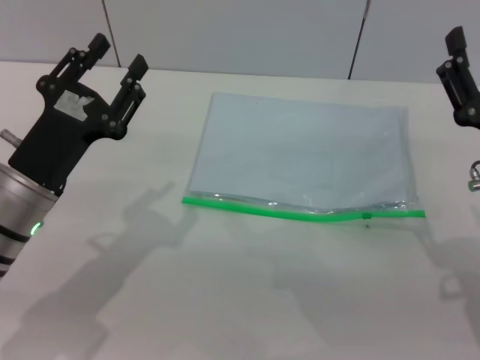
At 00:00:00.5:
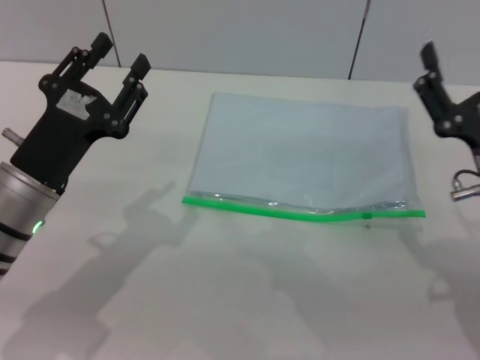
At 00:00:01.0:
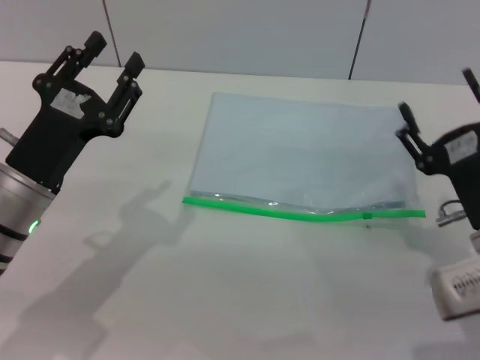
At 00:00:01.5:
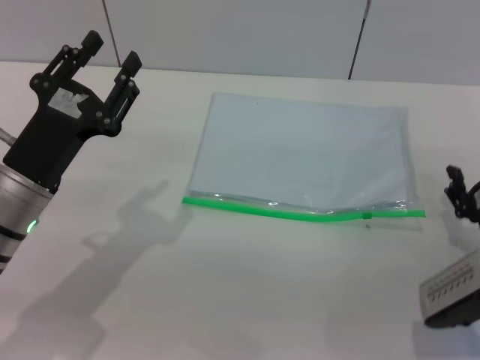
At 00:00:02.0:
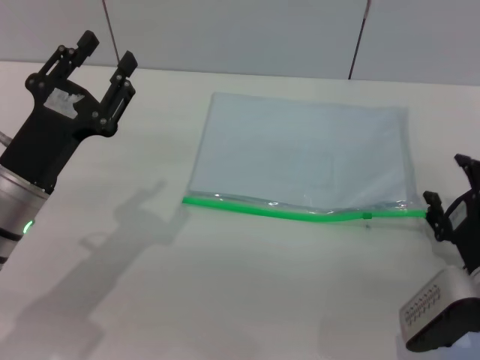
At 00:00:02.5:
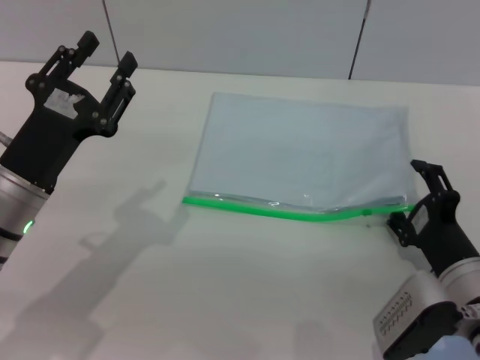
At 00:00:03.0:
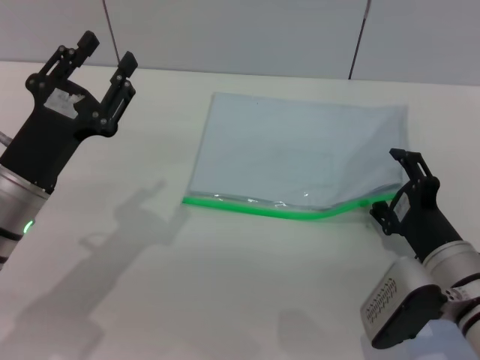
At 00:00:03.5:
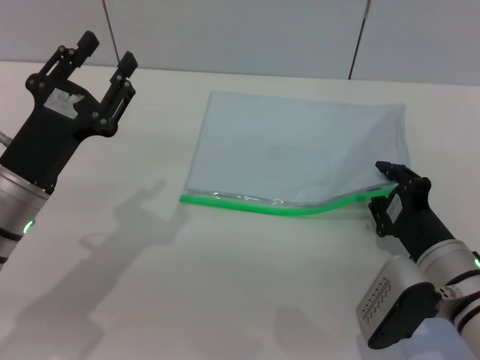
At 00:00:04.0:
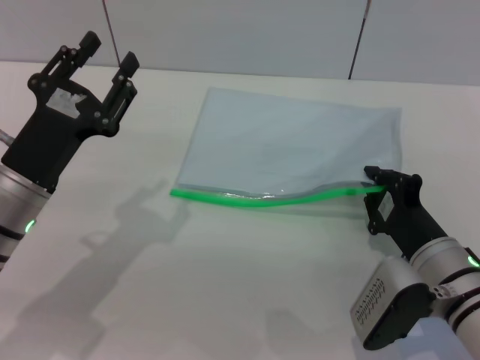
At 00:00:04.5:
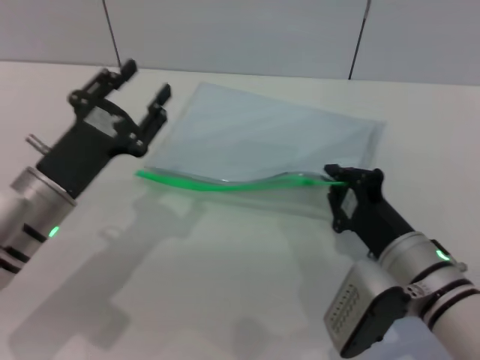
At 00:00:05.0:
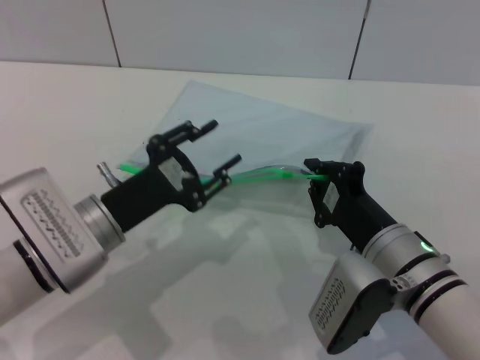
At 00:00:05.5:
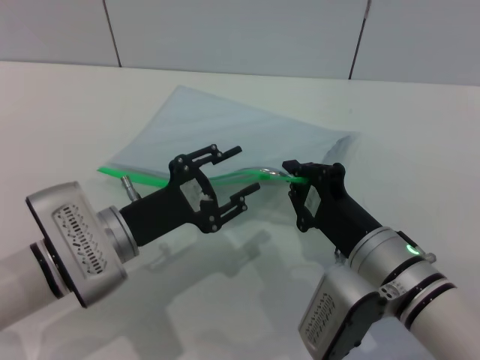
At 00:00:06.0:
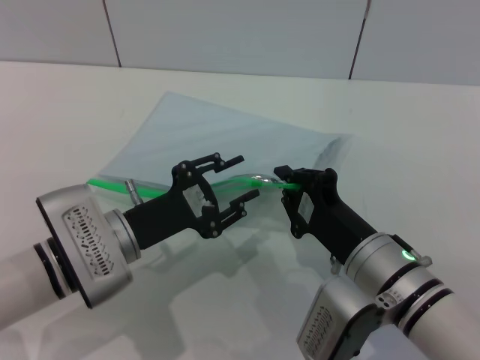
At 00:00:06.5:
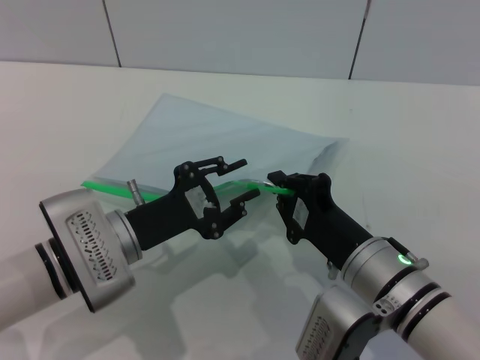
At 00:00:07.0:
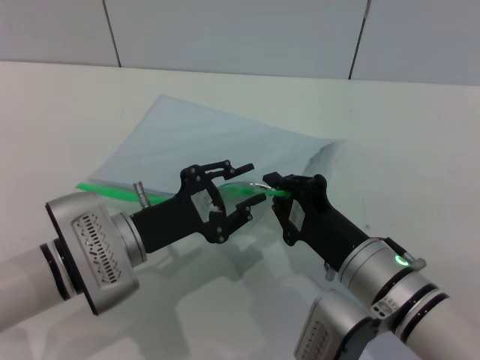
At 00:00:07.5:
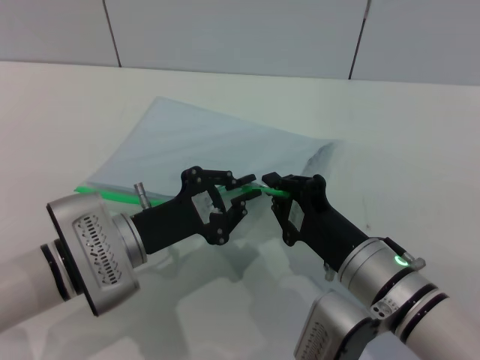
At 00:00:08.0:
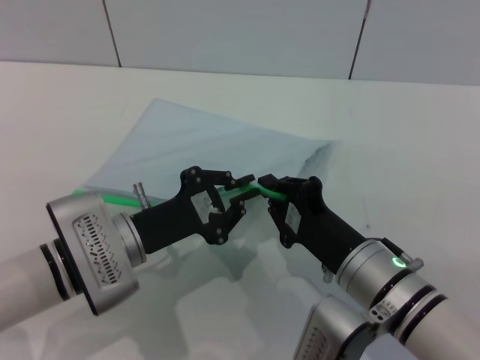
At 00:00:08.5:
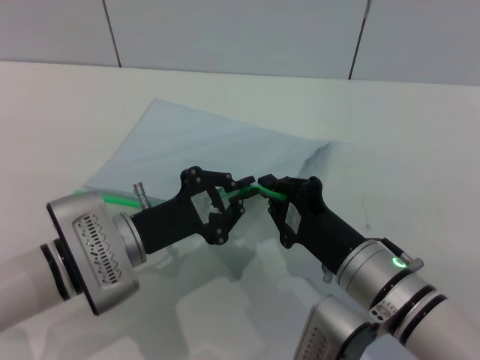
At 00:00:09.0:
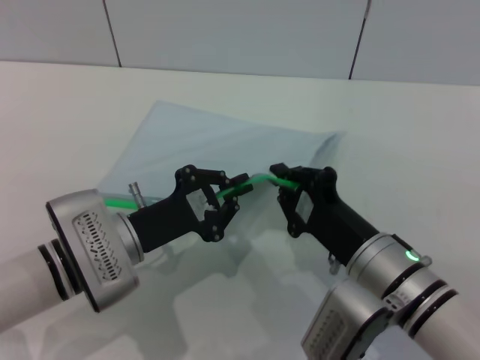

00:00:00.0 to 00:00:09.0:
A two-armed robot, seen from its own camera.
Step, 00:00:00.0 to 00:00:04.5: Pick up the transparent plastic bag with the right gripper.
00:00:00.0 to 00:00:02.0: The right gripper shifts roughly 10 cm downward.
00:00:02.0 to 00:00:04.5: The right gripper heads to the left, covering some 10 cm, and closes its fingers.
00:00:04.5 to 00:00:07.0: The left gripper travels to the right by approximately 5 cm, and closes its fingers.
00:00:07.0 to 00:00:09.0: The left gripper closes its fingers.

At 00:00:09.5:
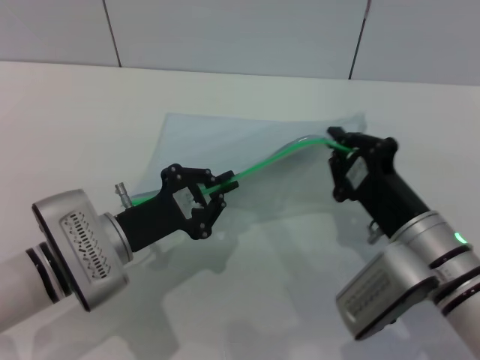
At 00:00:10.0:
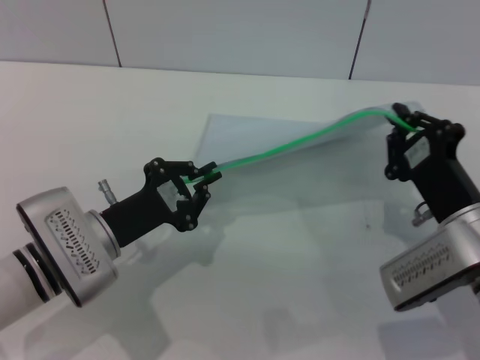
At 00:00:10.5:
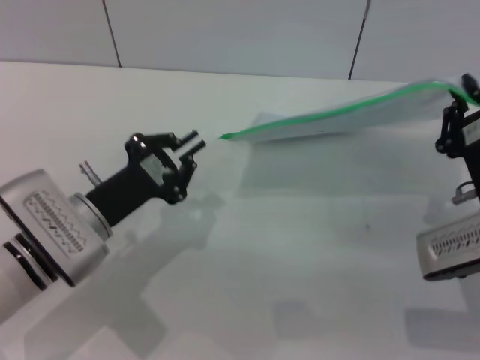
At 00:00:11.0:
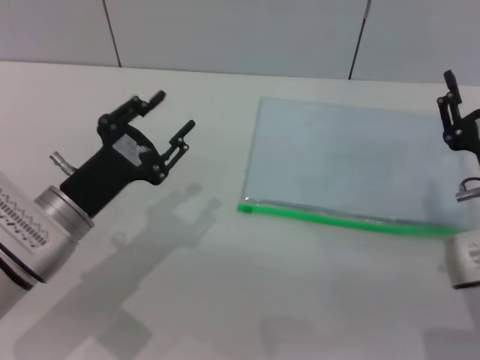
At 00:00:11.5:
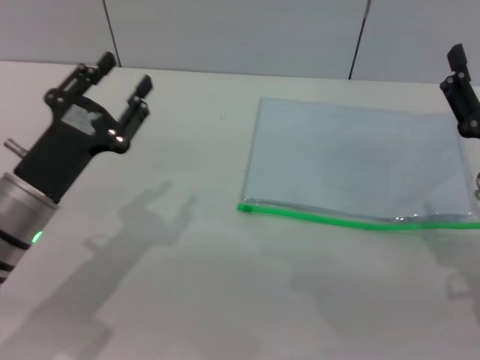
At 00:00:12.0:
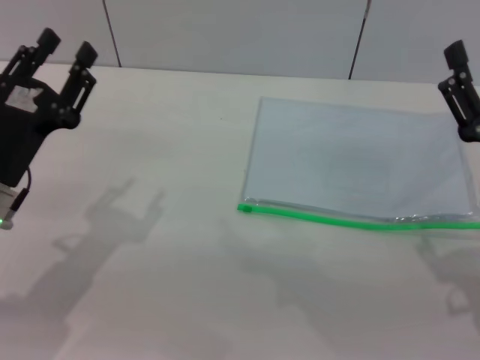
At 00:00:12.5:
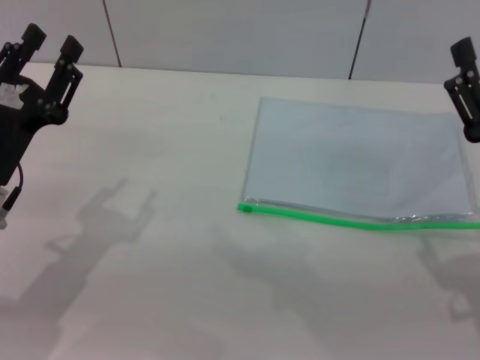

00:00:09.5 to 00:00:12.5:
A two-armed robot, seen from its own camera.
Step, 00:00:11.0 to 00:00:11.5: Place the transparent plastic bag.
00:00:09.5 to 00:00:11.0: The left gripper opens. The right gripper moves to the right, approximately 5 cm, and opens up.
00:00:11.0 to 00:00:12.5: The left gripper travels to the left by some 5 cm. The right gripper opens up.

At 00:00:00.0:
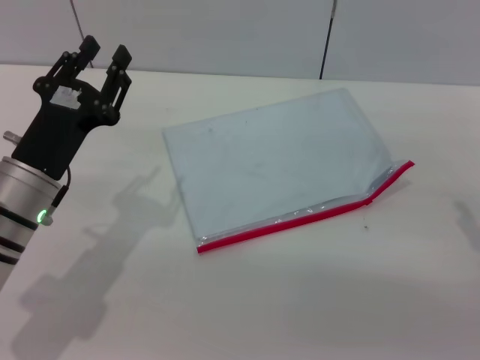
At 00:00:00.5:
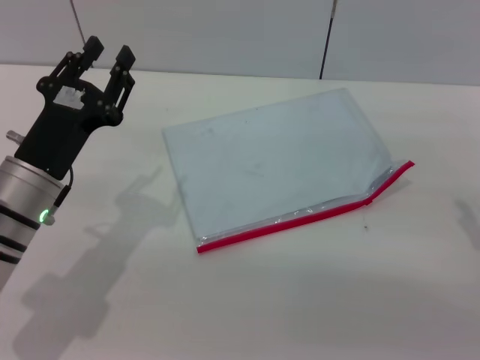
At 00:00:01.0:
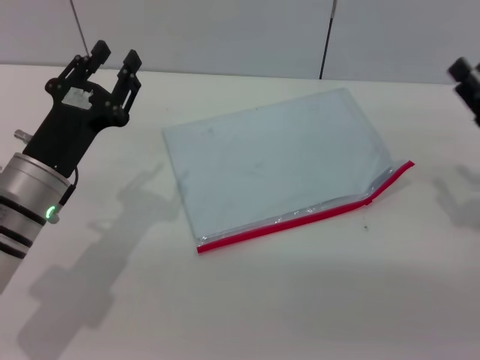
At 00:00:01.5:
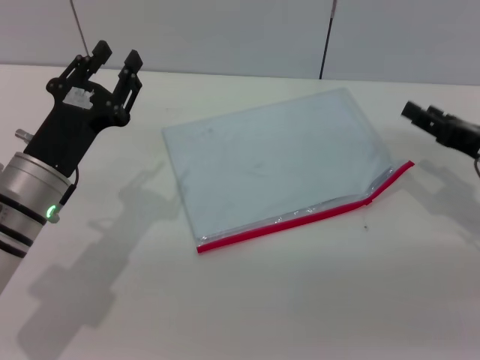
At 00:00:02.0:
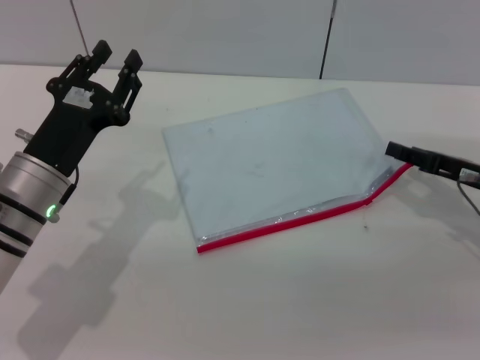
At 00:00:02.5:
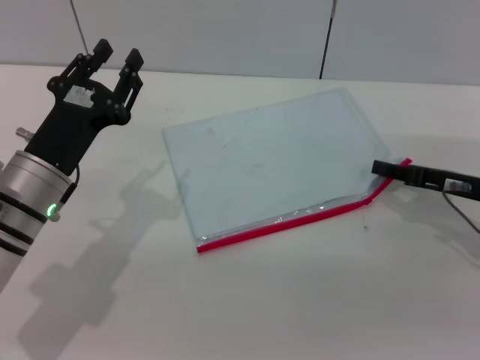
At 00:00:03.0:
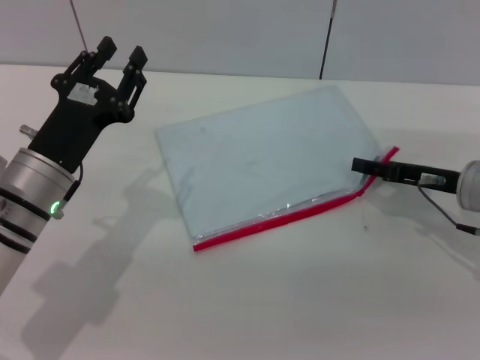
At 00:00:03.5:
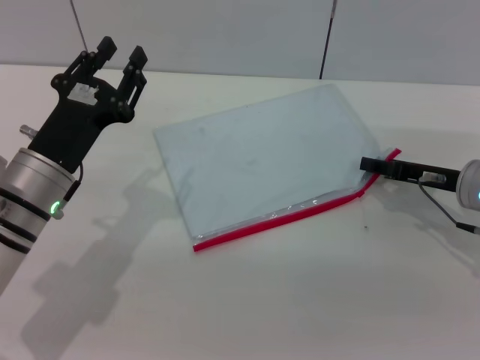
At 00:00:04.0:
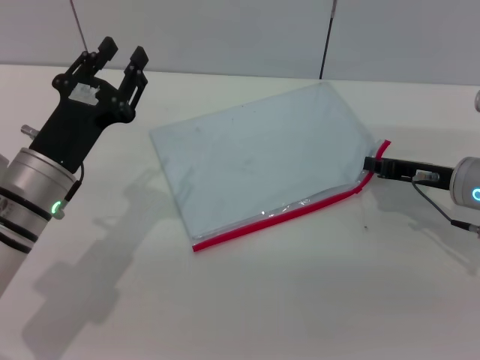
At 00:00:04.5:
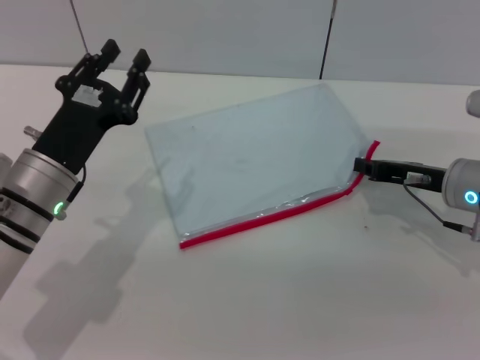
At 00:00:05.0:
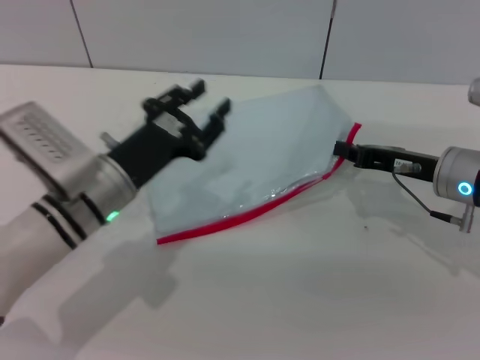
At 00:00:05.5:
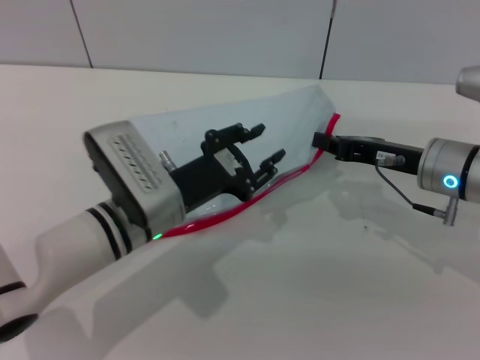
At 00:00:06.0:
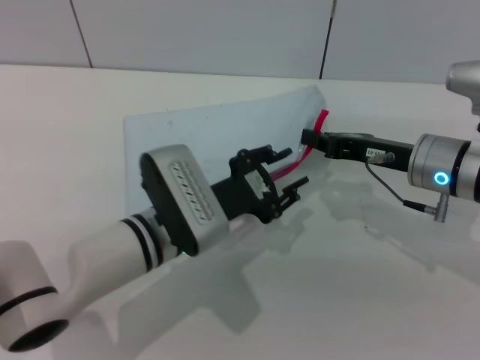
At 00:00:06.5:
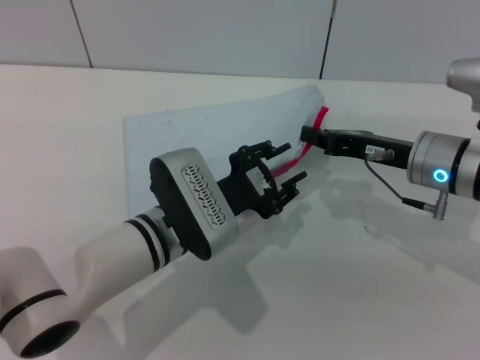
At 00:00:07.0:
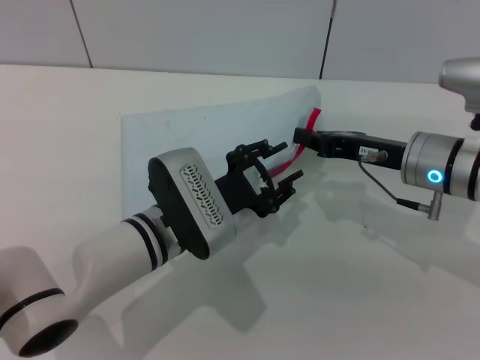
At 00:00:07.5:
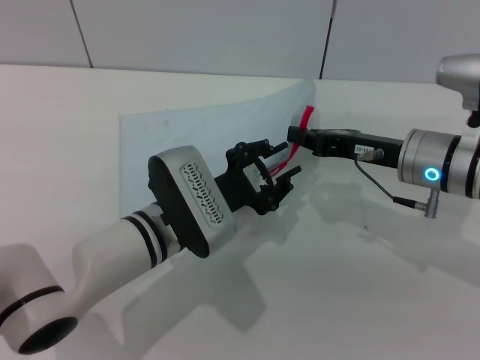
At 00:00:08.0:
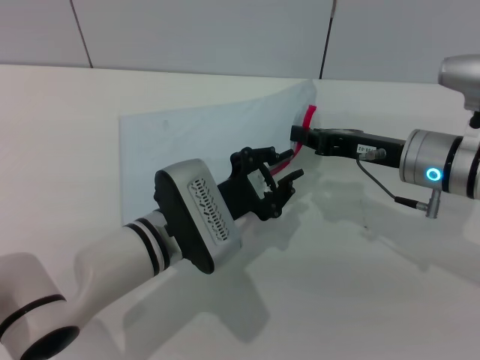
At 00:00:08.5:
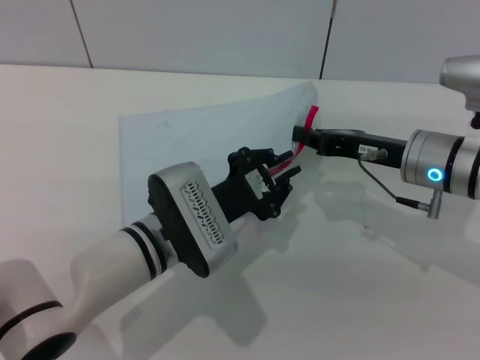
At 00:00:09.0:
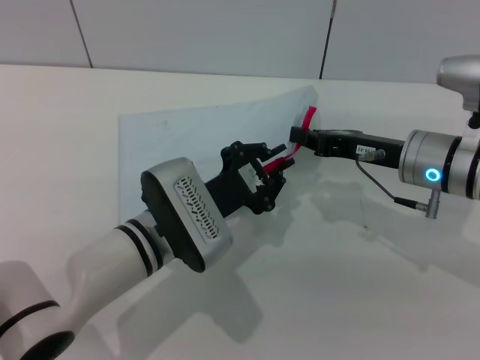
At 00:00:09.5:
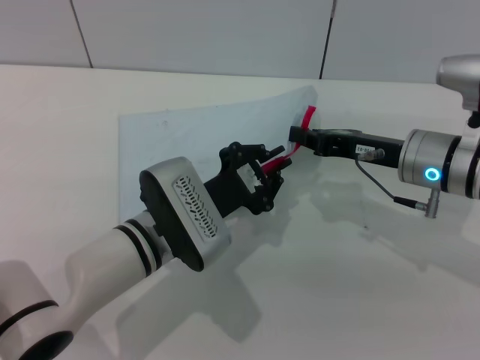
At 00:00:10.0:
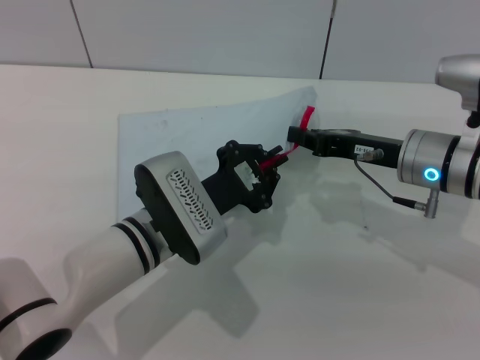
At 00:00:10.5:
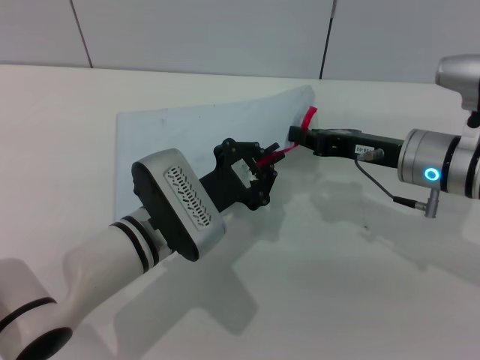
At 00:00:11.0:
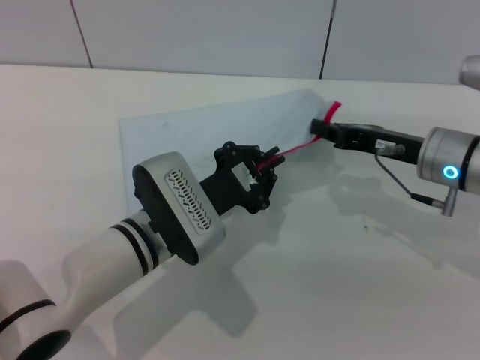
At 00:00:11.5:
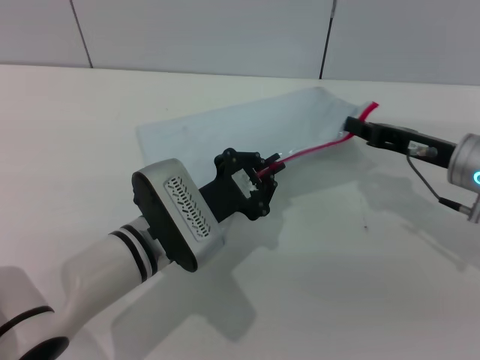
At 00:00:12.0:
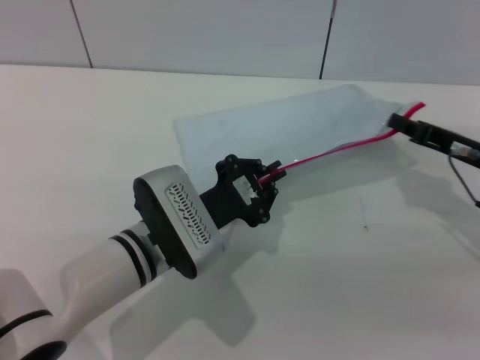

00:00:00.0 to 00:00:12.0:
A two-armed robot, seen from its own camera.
Step, 00:00:00.0 to 00:00:05.0: Pick up the transparent plastic bag with the right gripper.
00:00:00.0 to 00:00:02.0: The right gripper heads forward, covering approximately 5 cm.
00:00:02.0 to 00:00:04.0: The right gripper closes up.
00:00:04.0 to 00:00:06.0: The right gripper is displaced to the left by about 5 cm. Meanwhile the left gripper is displaced to the right by roughly 10 cm.
00:00:06.0 to 00:00:08.0: The left gripper closes.
00:00:08.0 to 00:00:10.0: The left gripper closes up.
00:00:10.0 to 00:00:12.0: The right gripper heads to the right, covering some 10 cm.

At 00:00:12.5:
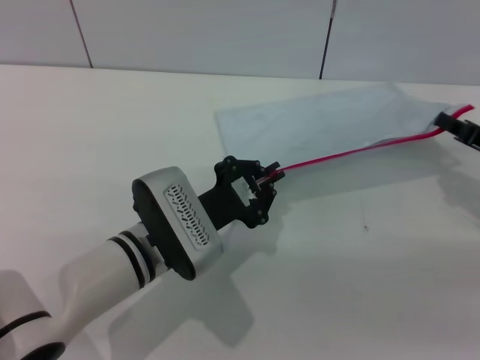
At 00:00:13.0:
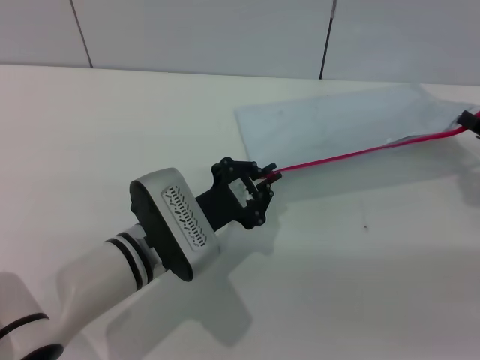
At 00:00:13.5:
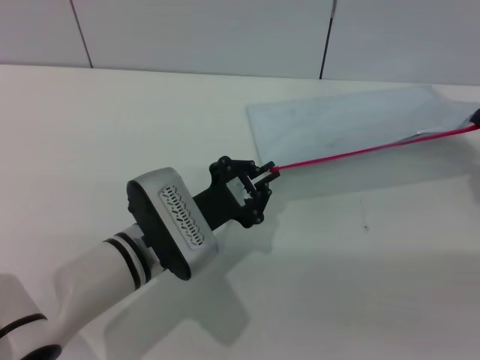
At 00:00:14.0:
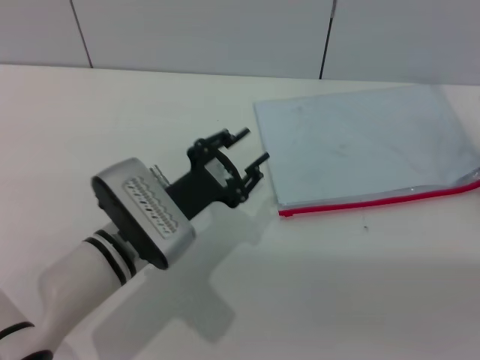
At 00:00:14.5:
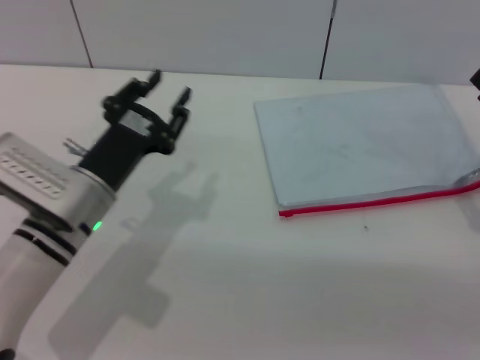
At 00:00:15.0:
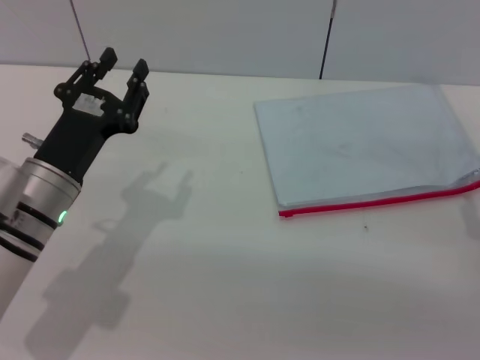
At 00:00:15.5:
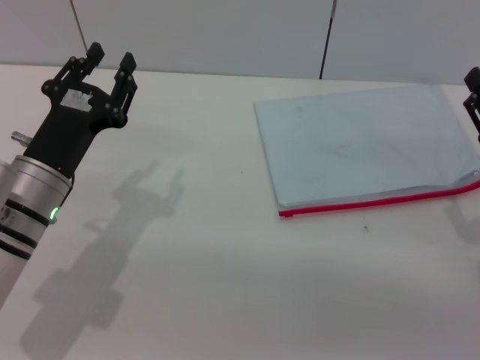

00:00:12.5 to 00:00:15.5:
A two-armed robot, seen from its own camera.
Step, 00:00:14.5 to 00:00:15.0: Place the transparent plastic bag.
00:00:12.5 to 00:00:14.0: The left gripper opens its fingers. Meanwhile the right gripper opens up.
00:00:14.0 to 00:00:15.5: The two grippers go approximately 10 cm to the left. The left gripper opens up.
